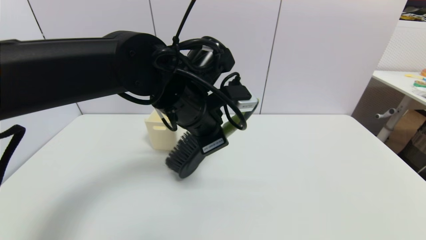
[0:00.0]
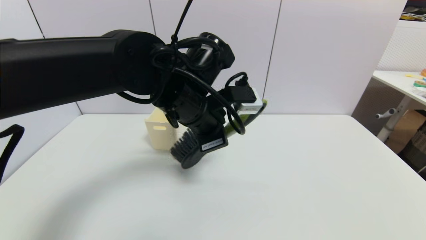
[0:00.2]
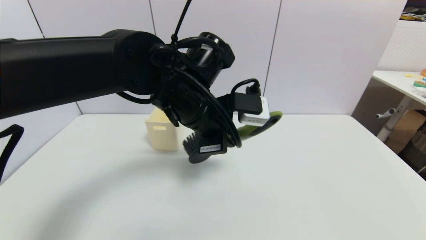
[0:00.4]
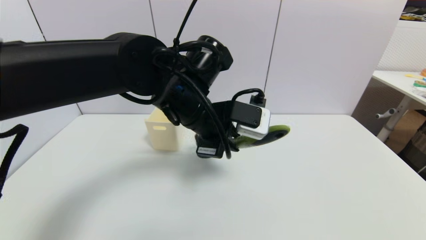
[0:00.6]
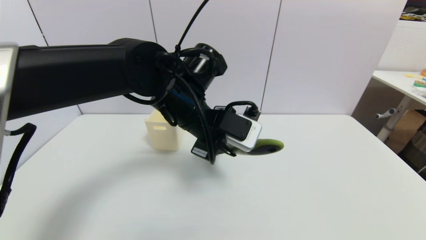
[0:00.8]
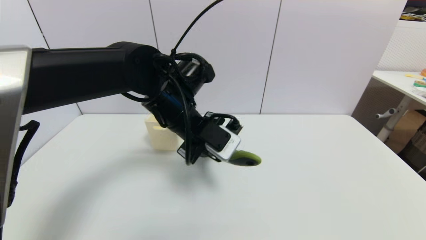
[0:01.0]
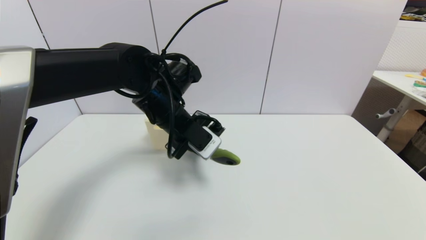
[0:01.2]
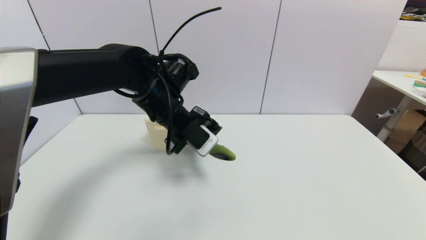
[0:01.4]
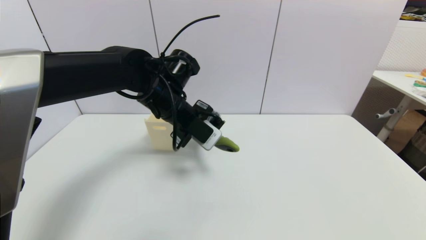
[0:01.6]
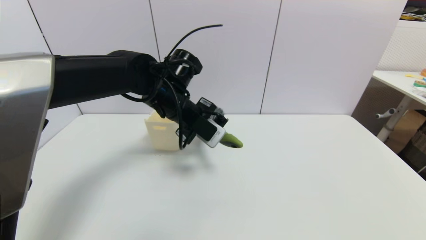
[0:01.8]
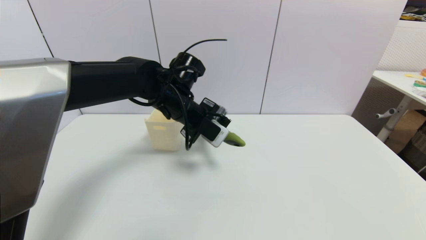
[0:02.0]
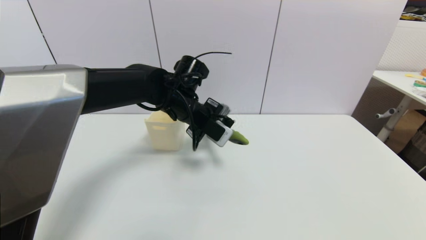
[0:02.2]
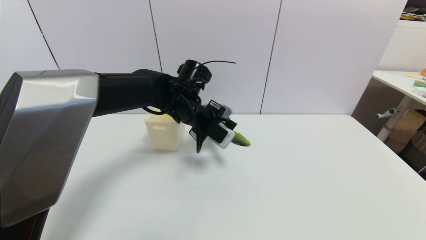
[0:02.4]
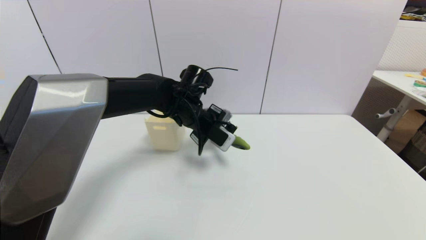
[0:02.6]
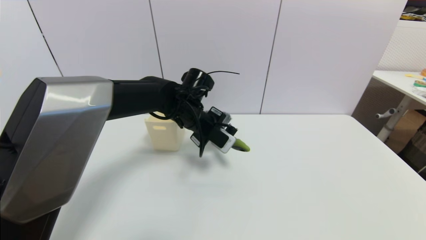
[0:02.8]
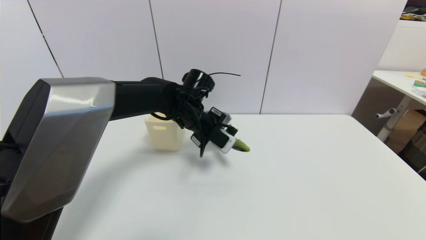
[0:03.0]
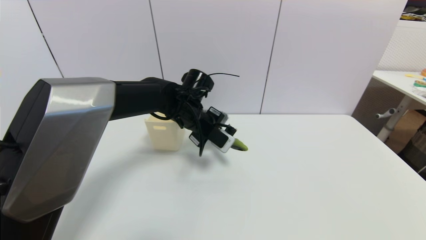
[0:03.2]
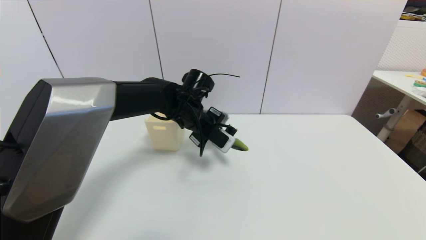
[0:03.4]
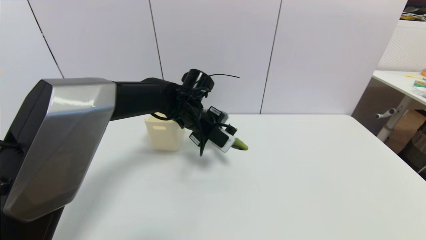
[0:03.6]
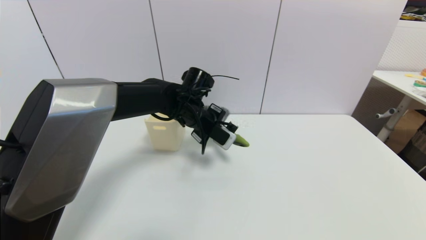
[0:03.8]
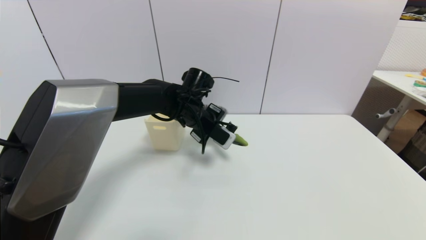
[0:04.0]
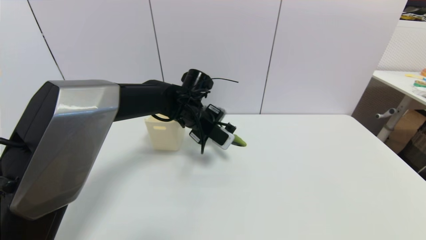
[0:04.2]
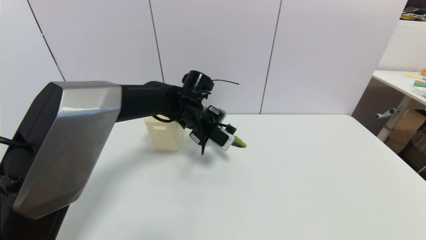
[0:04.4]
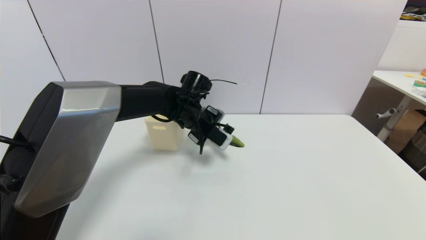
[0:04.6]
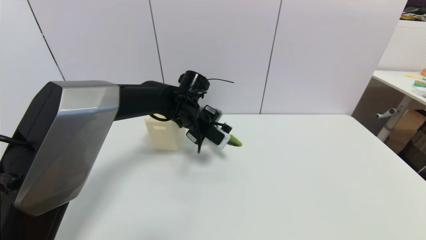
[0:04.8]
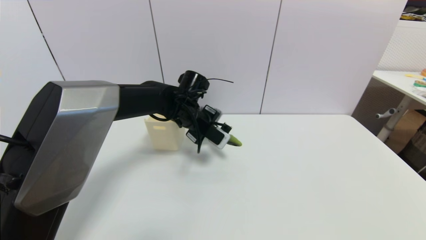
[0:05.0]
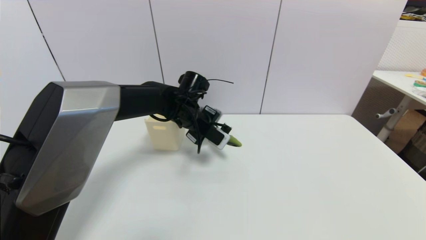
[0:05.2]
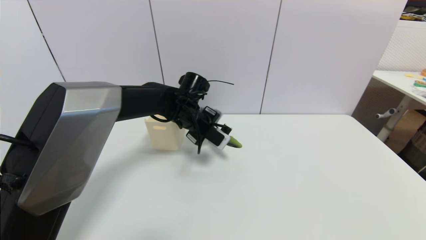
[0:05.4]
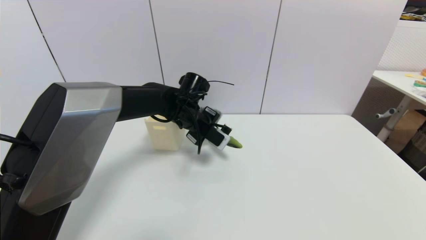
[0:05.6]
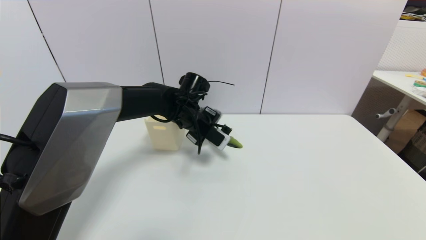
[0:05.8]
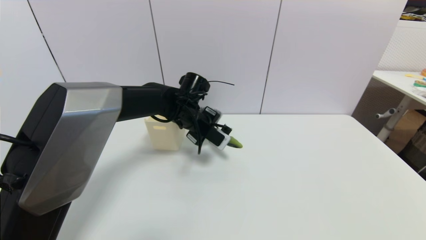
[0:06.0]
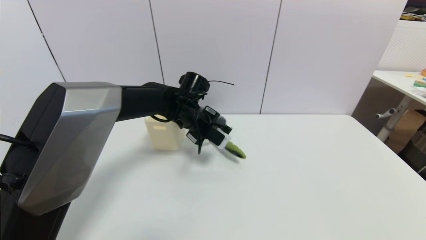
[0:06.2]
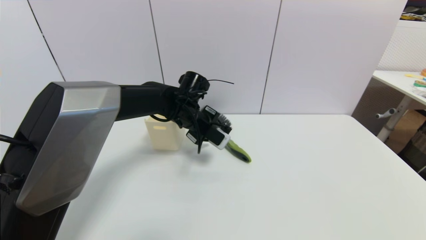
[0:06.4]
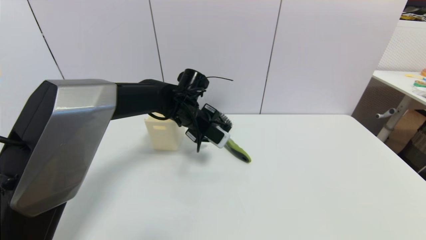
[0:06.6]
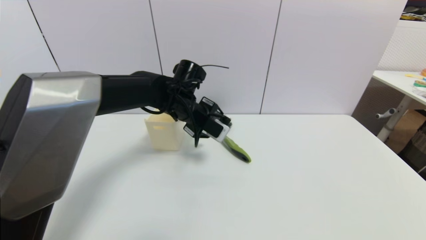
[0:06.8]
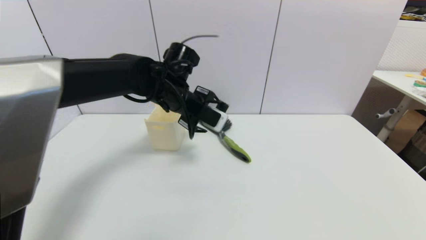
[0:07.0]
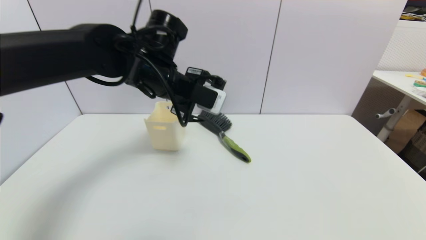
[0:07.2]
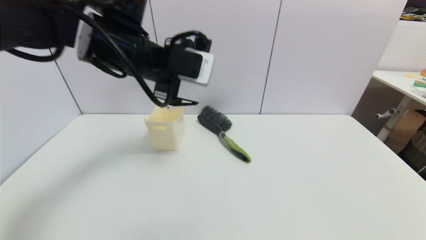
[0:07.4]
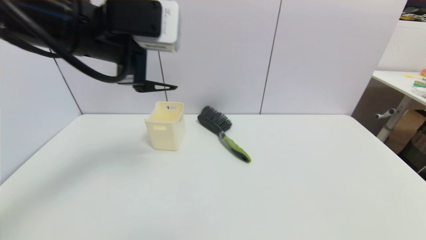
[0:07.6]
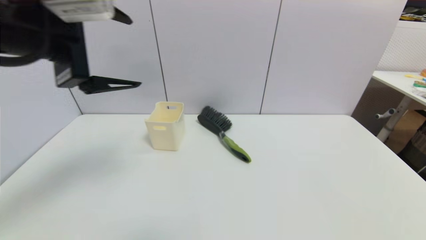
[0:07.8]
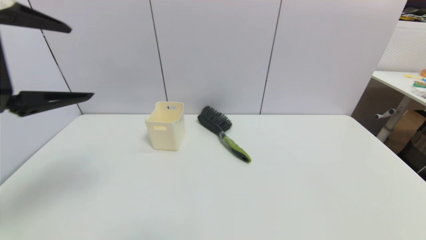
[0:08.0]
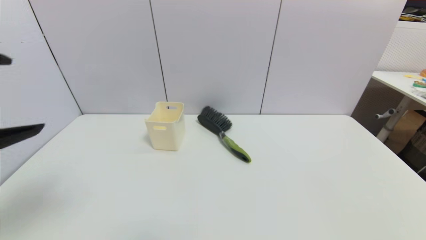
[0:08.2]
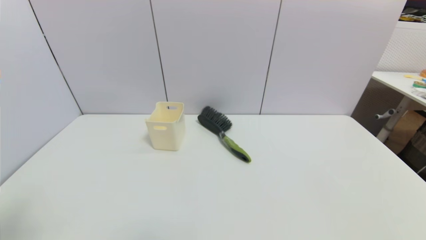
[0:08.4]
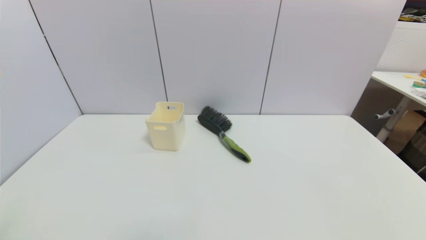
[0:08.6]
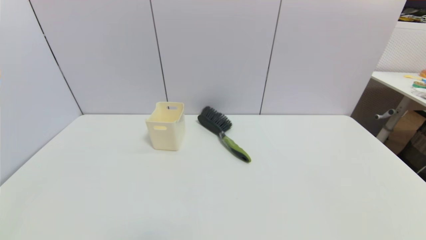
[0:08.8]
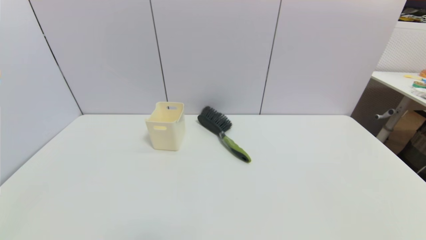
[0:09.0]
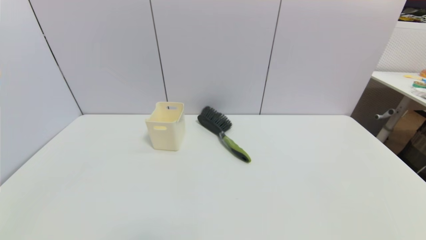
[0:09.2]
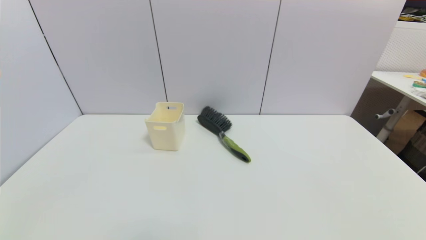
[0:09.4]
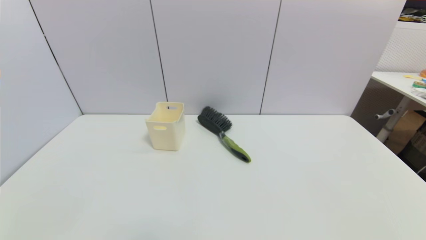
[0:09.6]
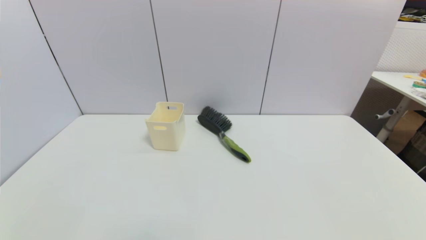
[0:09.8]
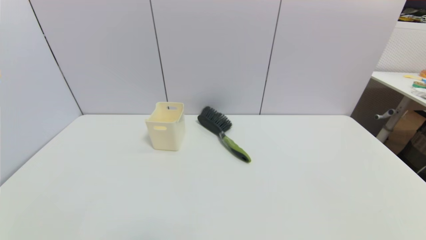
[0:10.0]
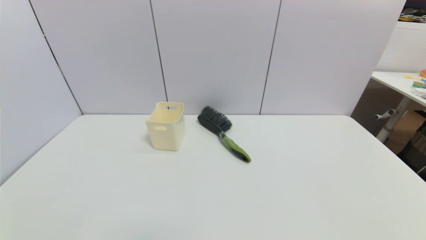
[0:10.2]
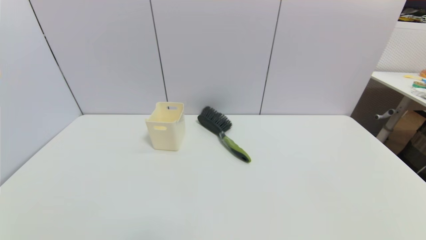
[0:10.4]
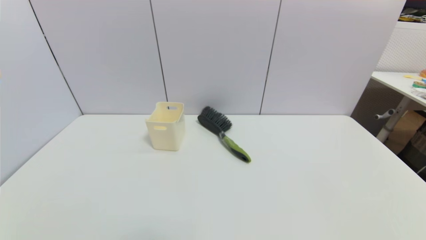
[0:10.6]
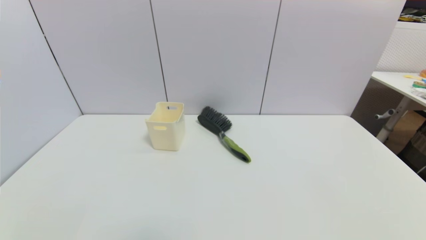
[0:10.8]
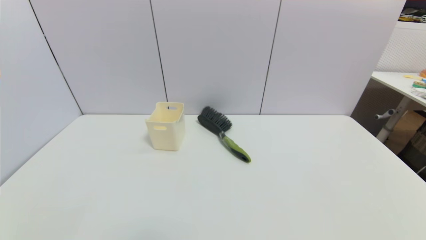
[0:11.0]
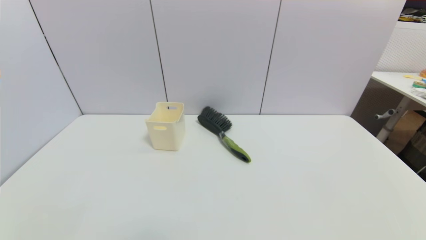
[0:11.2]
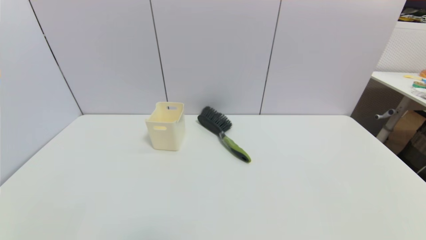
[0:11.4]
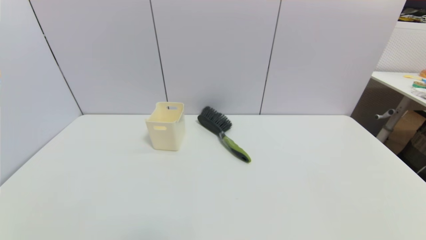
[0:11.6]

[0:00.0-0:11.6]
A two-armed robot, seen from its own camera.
Task of the whole recording: put the brush in the designated position.
0:00.0 to 0:01.4: The left gripper goes about 5 cm forward.
0:01.4 to 0:02.8: The left gripper shifts about 5 cm forward.
0:02.8 to 0:04.4: The grippers move only a little.
0:04.4 to 0:05.8: Both grippers stay about where they are.
0:05.8 to 0:07.2: The left gripper moves upward and backward, approximately 15 cm, and opens.
0:07.2 to 0:08.8: The left gripper heads backward and to the left, covering approximately 40 cm.
